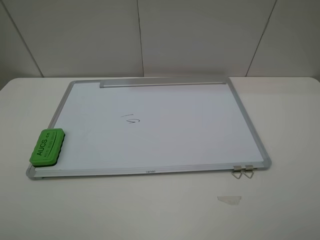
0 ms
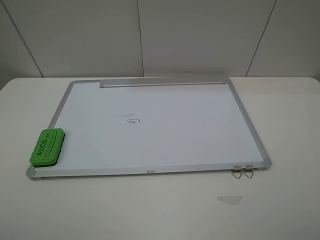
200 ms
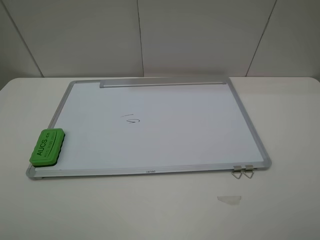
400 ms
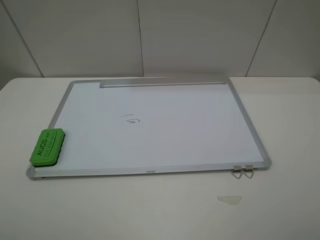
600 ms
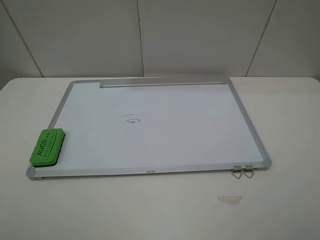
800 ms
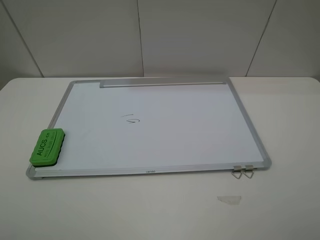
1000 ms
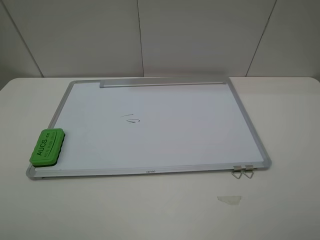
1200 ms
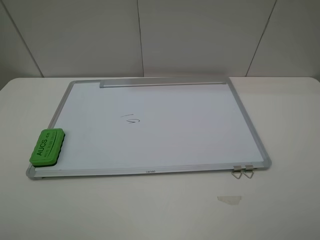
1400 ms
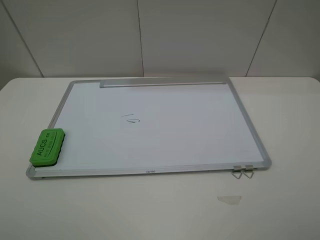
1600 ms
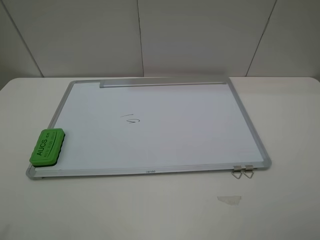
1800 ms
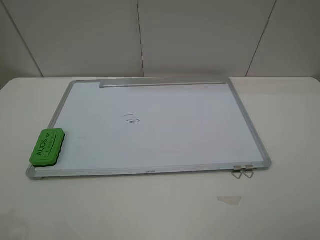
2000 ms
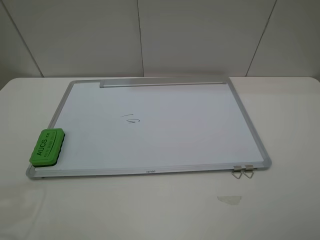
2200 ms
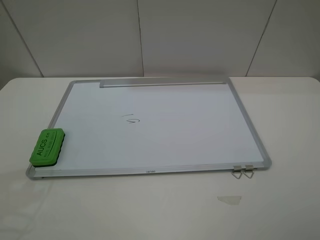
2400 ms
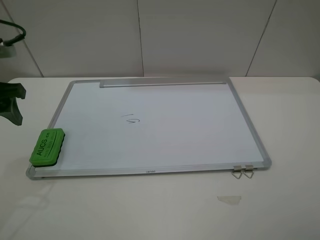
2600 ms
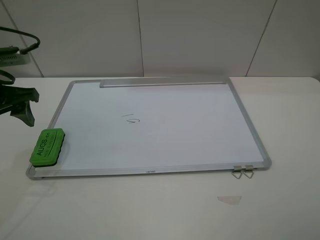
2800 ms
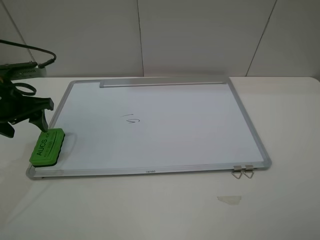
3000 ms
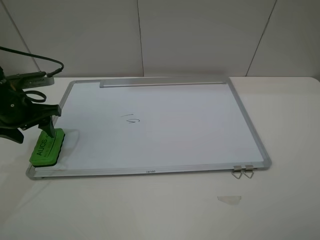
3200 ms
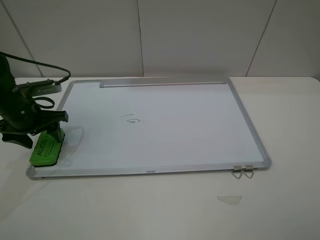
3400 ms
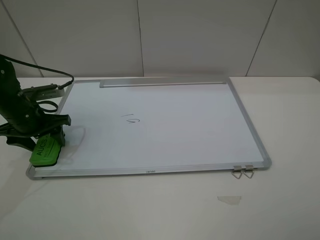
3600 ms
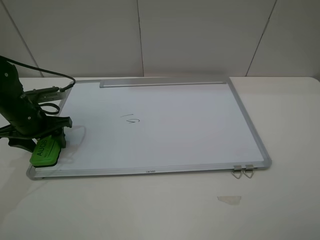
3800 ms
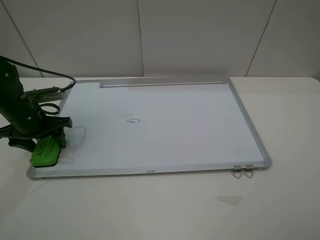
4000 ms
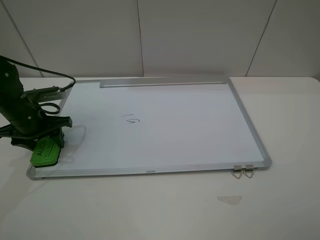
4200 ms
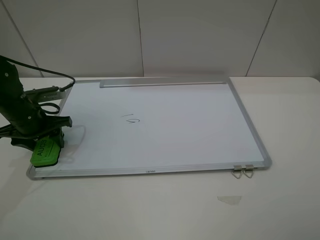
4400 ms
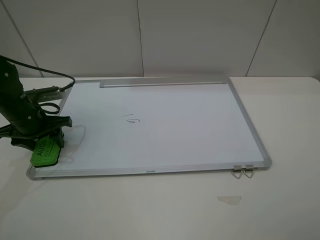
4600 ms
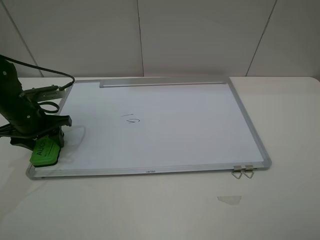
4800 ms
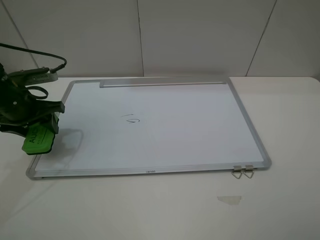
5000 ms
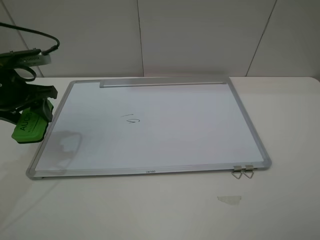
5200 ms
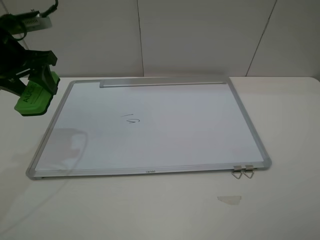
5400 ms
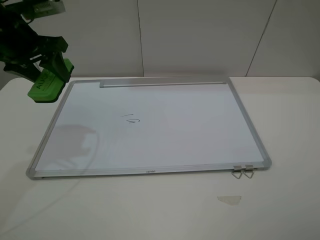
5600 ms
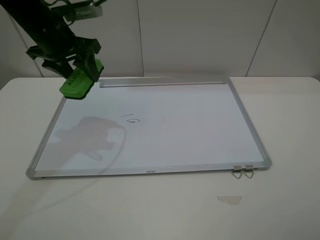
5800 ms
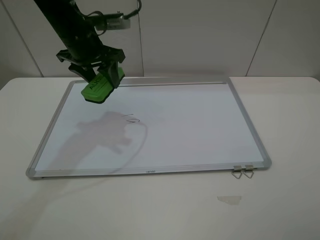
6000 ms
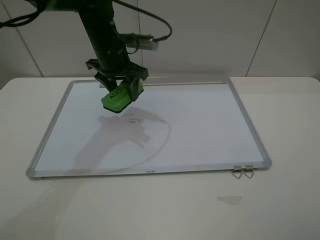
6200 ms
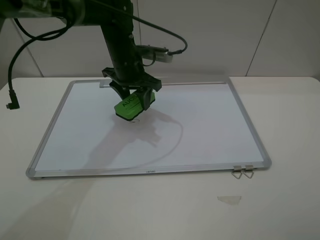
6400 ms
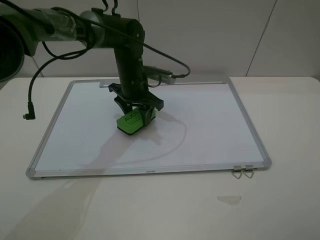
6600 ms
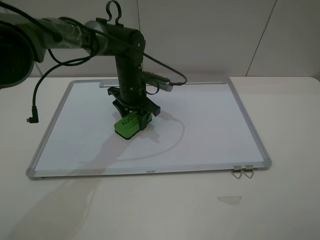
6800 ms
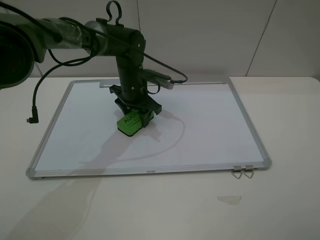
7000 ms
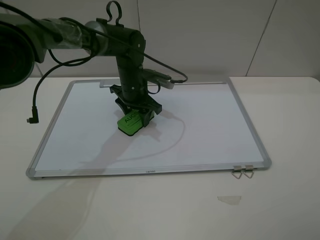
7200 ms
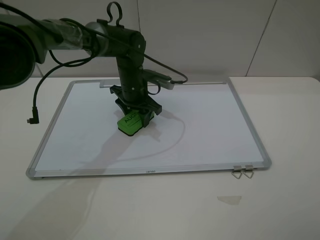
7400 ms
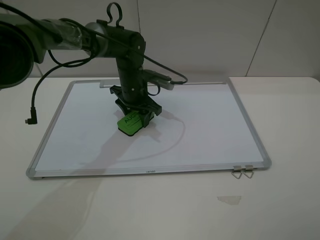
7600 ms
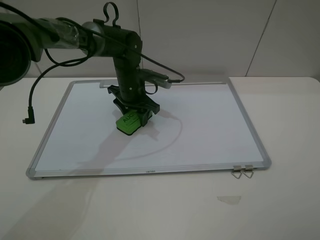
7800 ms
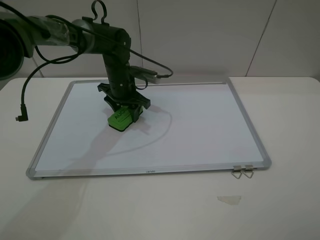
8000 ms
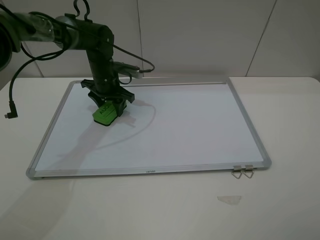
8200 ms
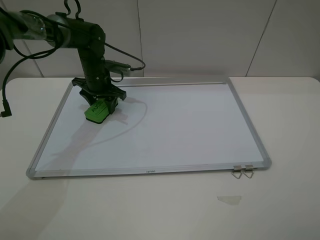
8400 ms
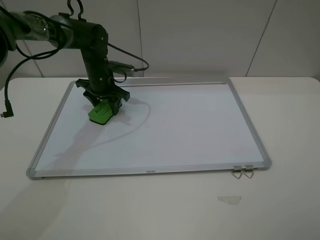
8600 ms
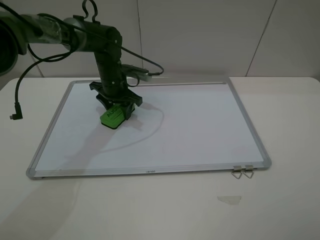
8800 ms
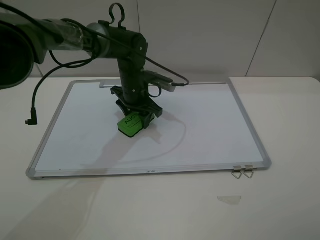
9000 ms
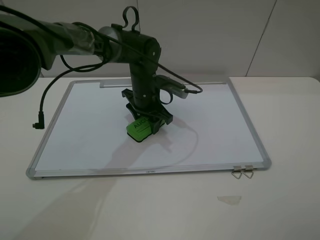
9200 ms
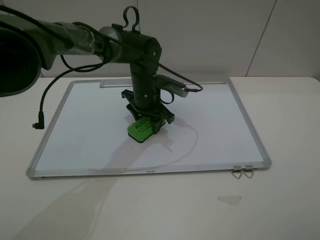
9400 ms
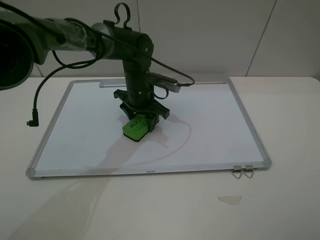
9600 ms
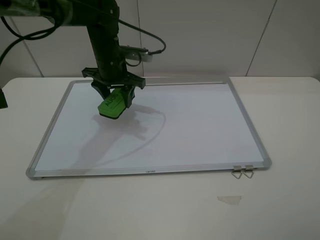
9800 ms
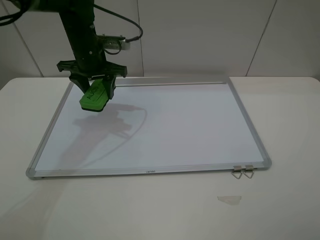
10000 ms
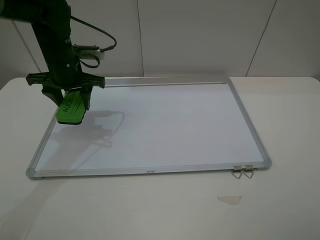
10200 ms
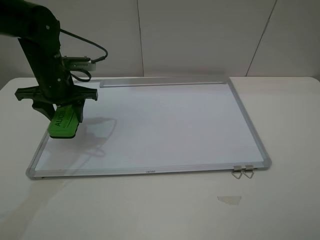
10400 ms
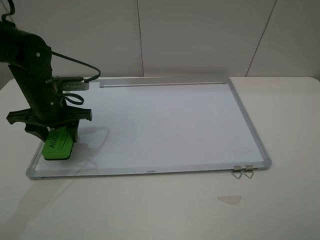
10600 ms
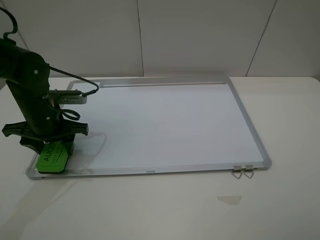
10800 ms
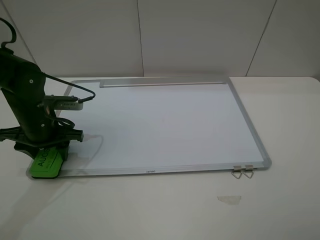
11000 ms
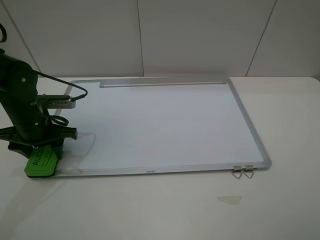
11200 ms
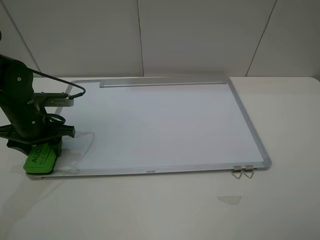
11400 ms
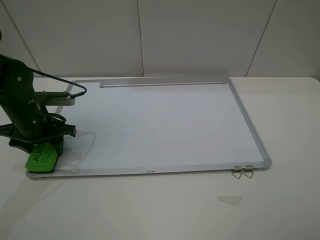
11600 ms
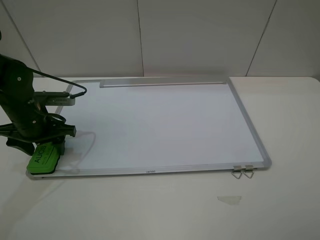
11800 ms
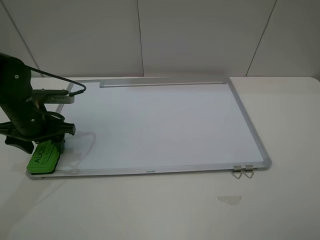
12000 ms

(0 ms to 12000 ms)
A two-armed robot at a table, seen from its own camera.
Step, 0 ms - 4600 ms: Grasp the eraser with the left gripper.
Step, 4800 ms - 9400 ms: Grasp the eraser and wipe the blackboard with the left gripper.
Step, 9600 ms - 12000 ms: Place the eraser with the left gripper.
1600 ms - 3000 ms: The left gripper shifts roughly 30 cm forward and downward.
3000 ms - 4400 ms: The left gripper is displaced downward by about 5 cm.
4400 ms - 6000 ms: The left gripper travels to the right, upward and forward by some 20 cm.
6000 ms - 7600 ms: The left gripper is displaced downward and to the right by some 15 cm.
7600 ms - 9000 ms: The left gripper goes to the left and returns, approximately 10 cm each way.
9000 ms - 10400 ms: The left gripper moves to the left and upward, about 20 cm.
10400 ms - 12000 ms: The left gripper moves to the left, approximately 5 cm.

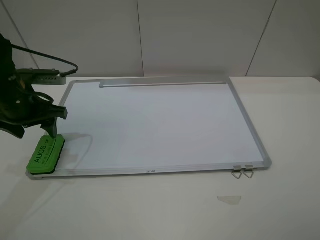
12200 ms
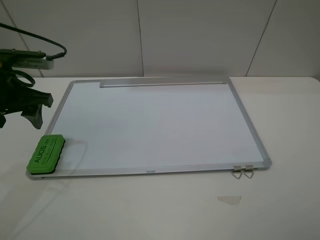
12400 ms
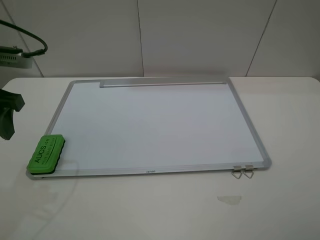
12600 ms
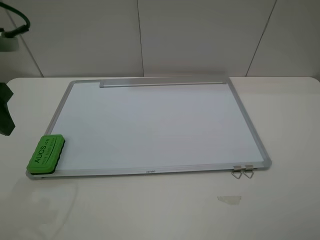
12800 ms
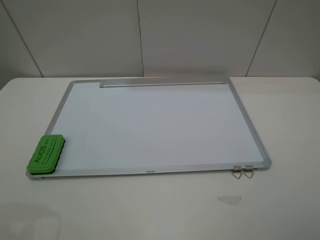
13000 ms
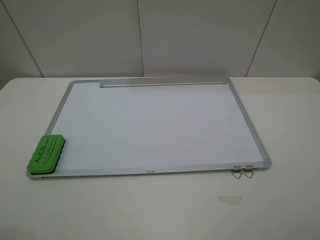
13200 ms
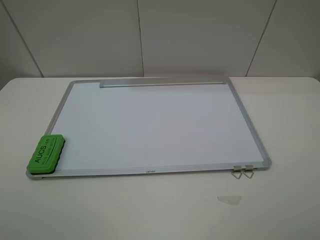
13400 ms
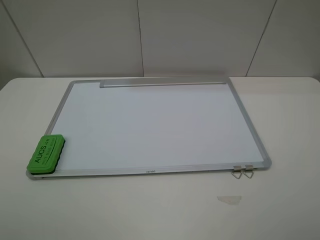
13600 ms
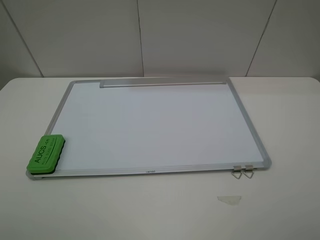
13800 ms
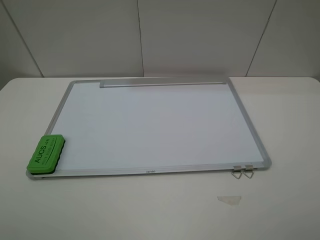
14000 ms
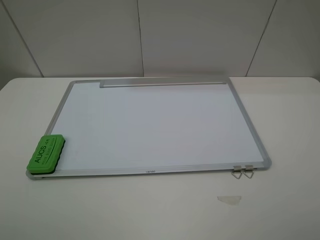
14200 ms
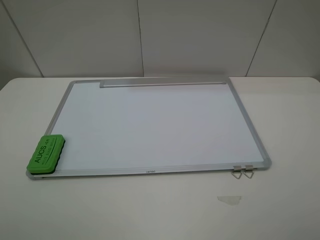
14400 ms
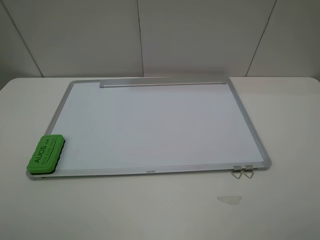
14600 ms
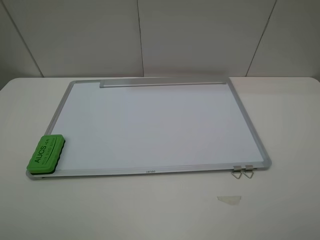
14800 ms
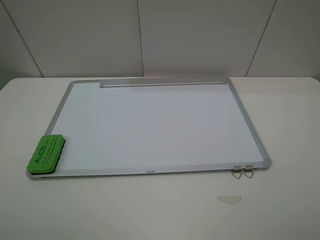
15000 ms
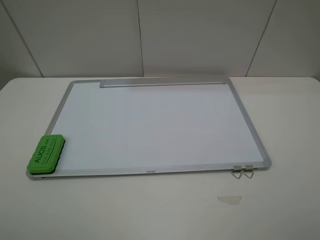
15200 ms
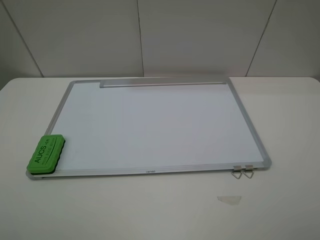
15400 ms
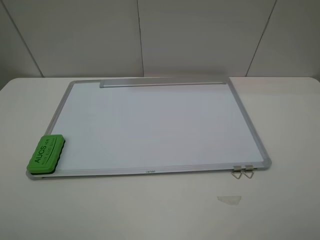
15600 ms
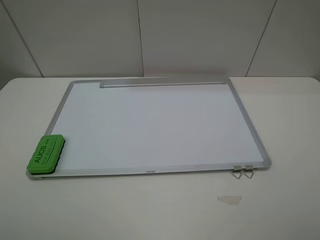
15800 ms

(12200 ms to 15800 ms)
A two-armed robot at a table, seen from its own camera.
12200 ms - 14000 ms: The left gripper heads backward, covering some 25 cm.
